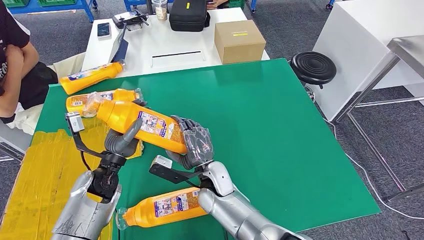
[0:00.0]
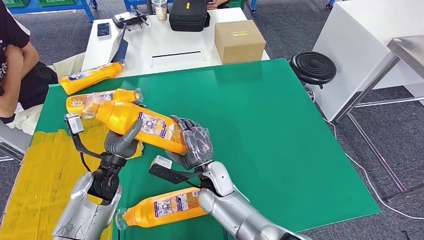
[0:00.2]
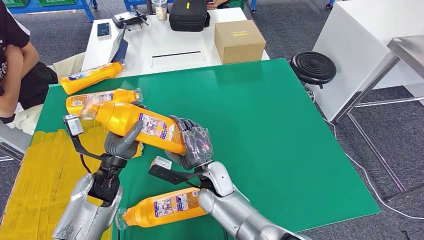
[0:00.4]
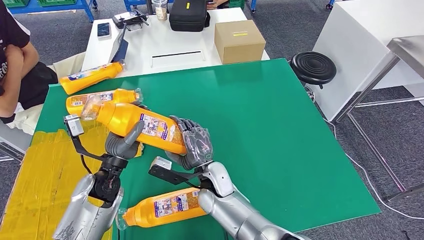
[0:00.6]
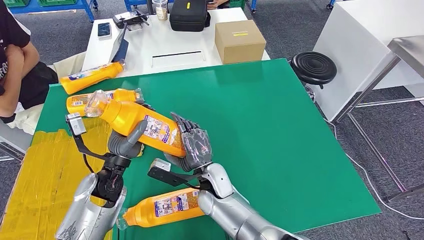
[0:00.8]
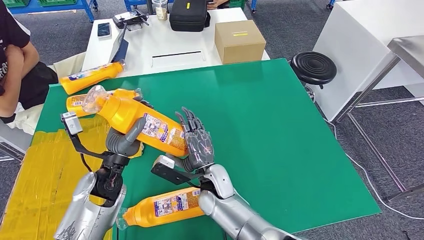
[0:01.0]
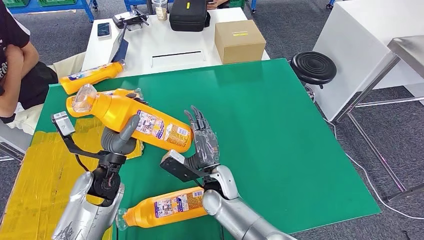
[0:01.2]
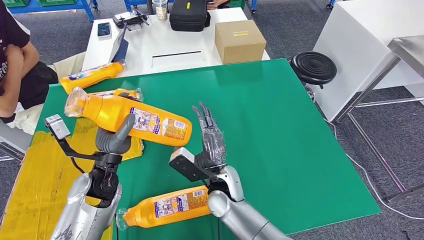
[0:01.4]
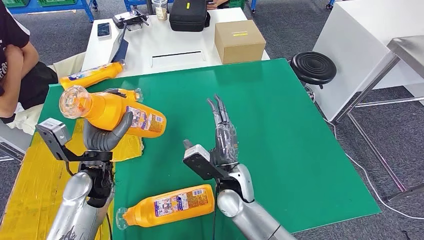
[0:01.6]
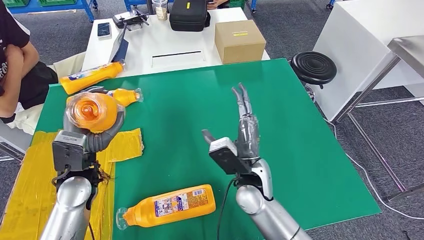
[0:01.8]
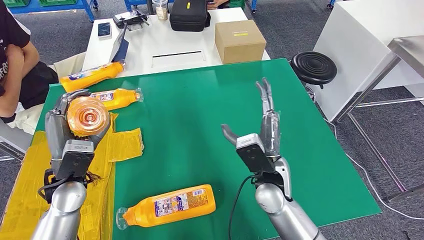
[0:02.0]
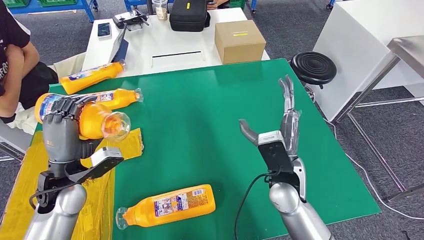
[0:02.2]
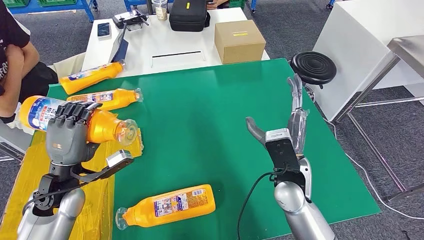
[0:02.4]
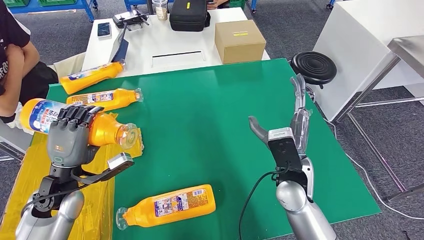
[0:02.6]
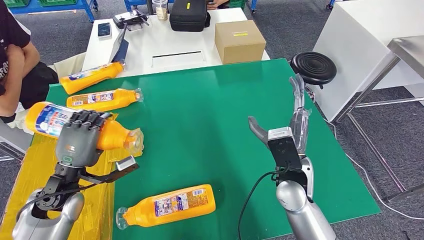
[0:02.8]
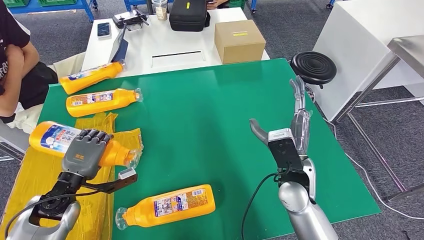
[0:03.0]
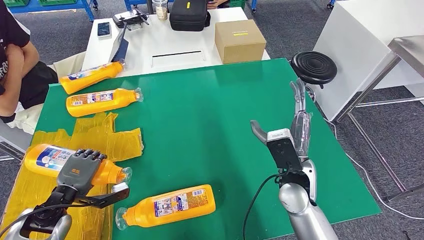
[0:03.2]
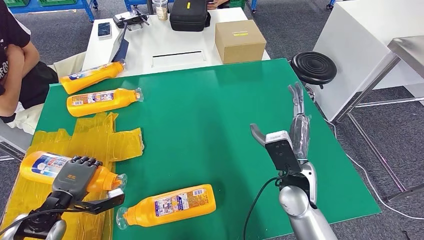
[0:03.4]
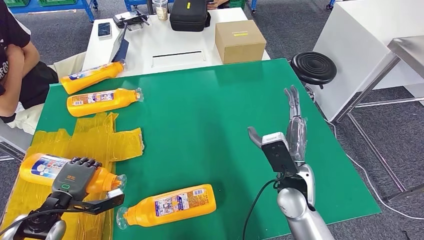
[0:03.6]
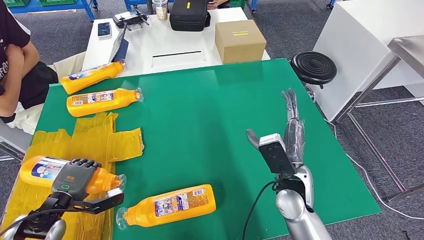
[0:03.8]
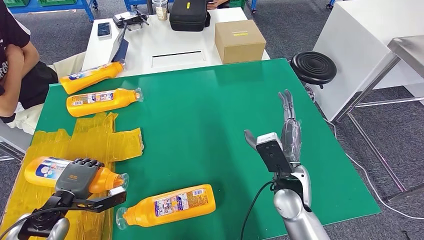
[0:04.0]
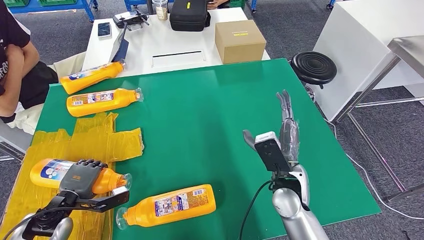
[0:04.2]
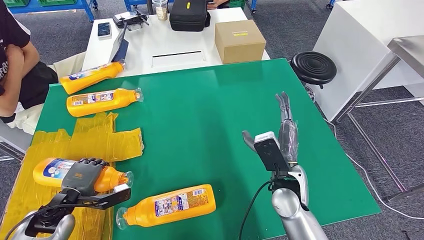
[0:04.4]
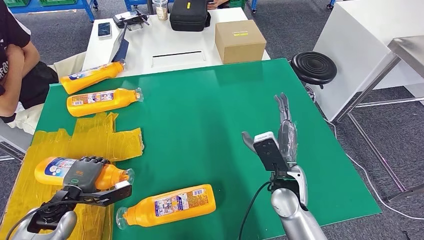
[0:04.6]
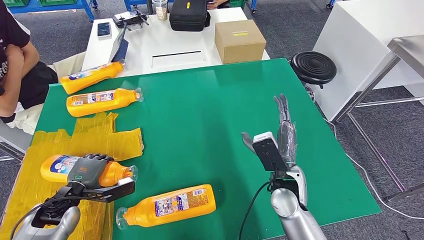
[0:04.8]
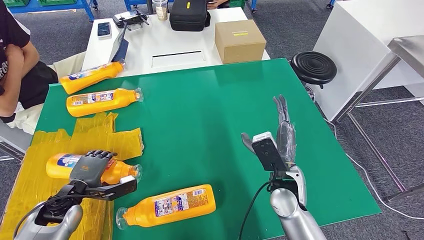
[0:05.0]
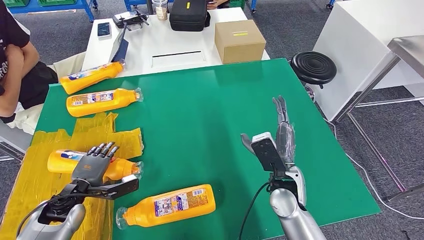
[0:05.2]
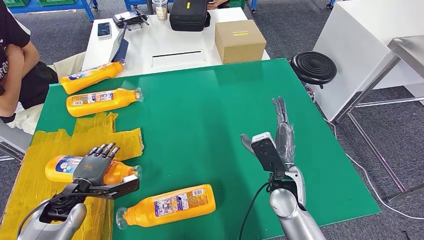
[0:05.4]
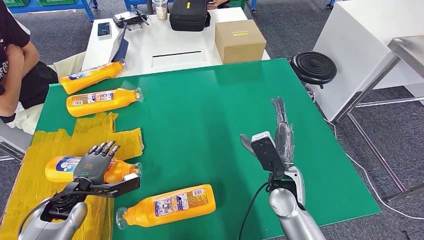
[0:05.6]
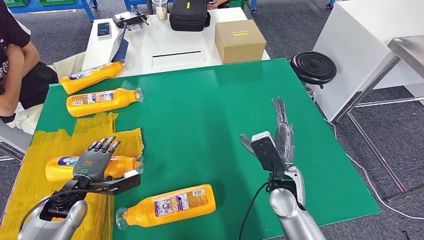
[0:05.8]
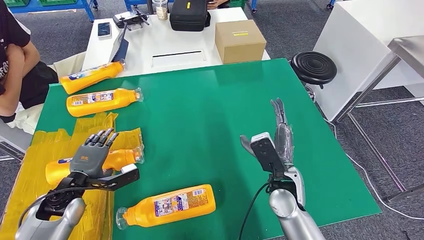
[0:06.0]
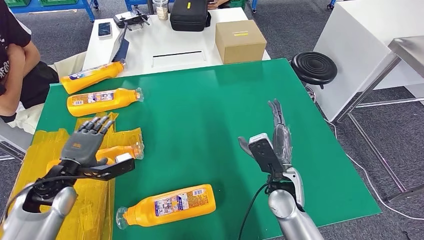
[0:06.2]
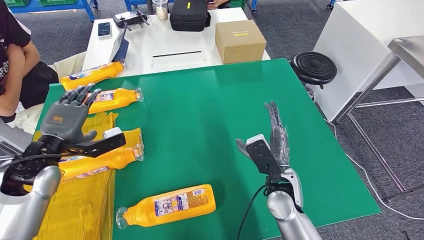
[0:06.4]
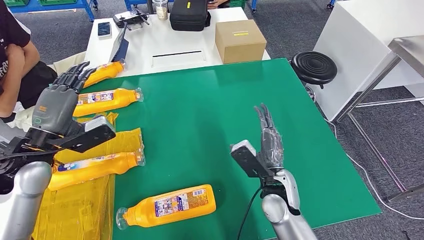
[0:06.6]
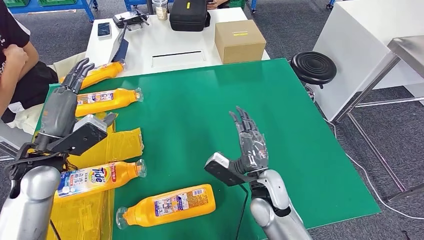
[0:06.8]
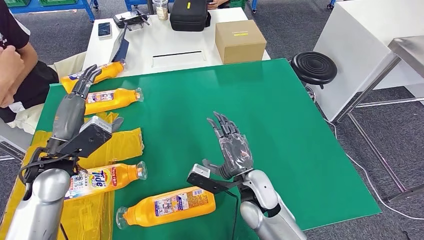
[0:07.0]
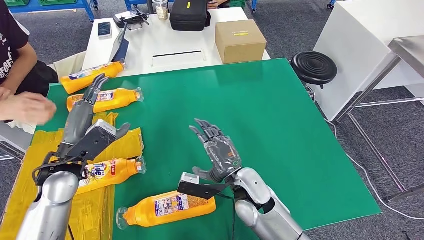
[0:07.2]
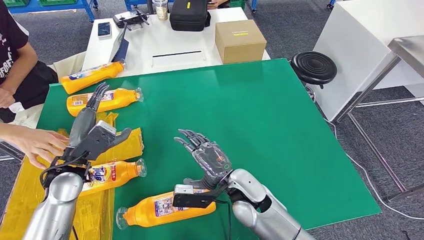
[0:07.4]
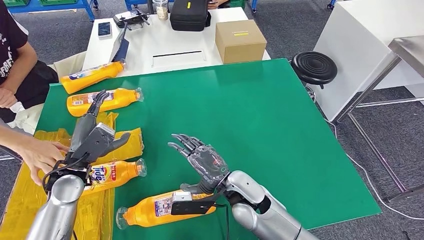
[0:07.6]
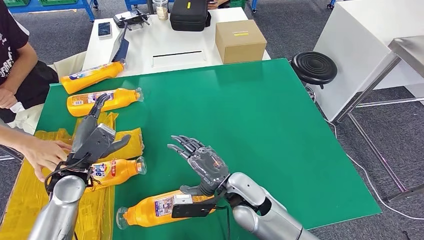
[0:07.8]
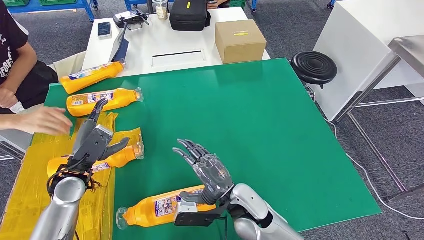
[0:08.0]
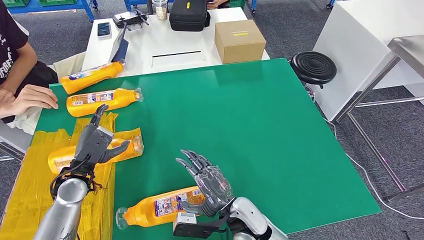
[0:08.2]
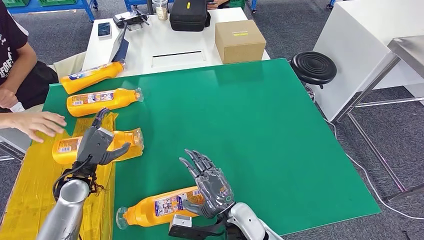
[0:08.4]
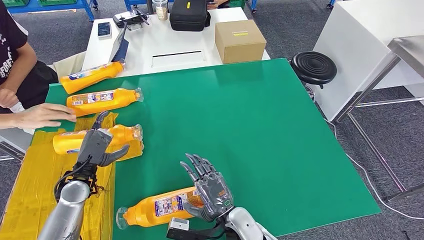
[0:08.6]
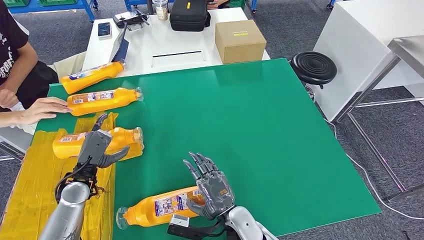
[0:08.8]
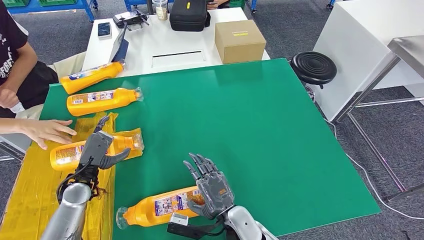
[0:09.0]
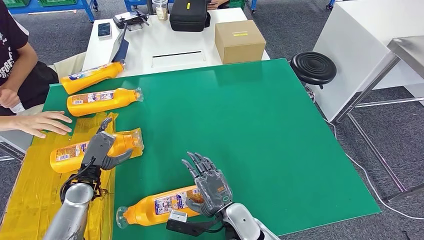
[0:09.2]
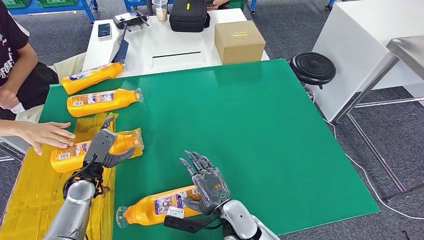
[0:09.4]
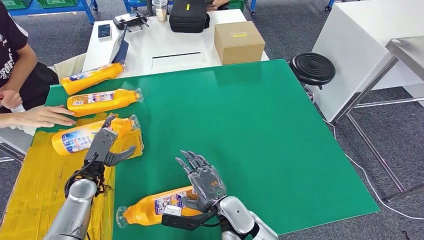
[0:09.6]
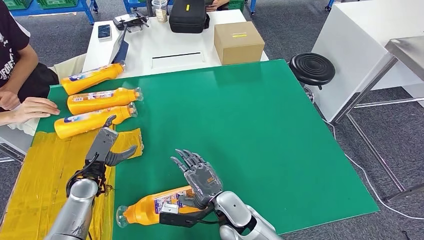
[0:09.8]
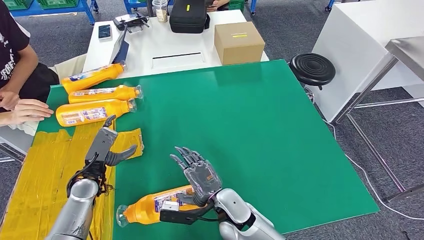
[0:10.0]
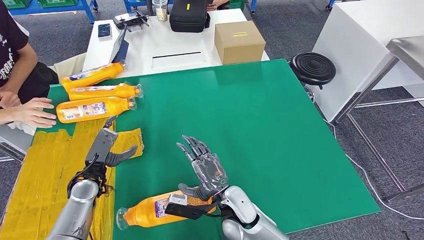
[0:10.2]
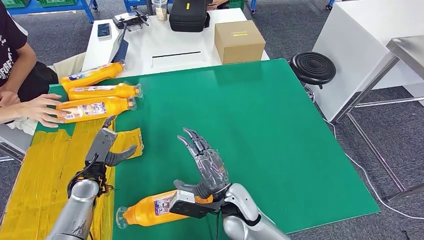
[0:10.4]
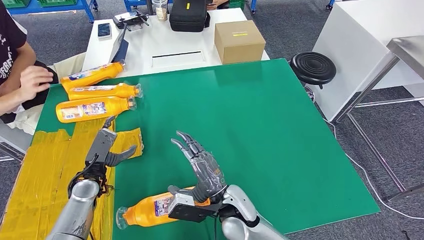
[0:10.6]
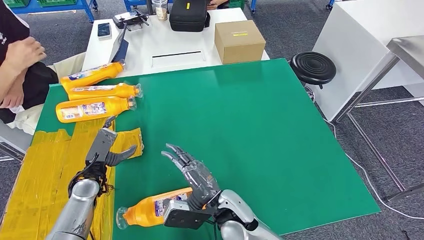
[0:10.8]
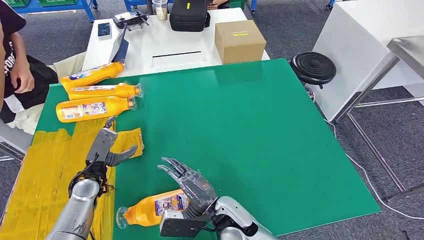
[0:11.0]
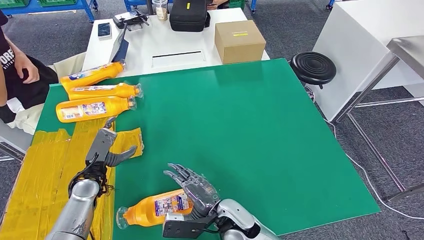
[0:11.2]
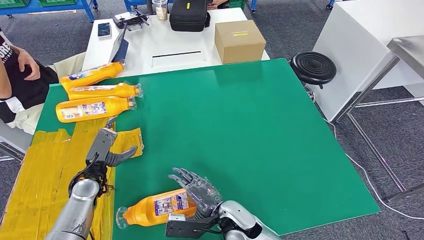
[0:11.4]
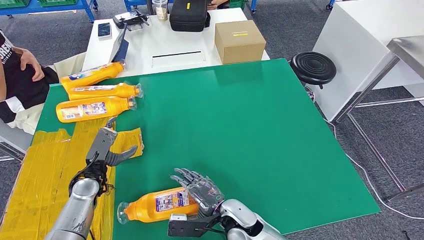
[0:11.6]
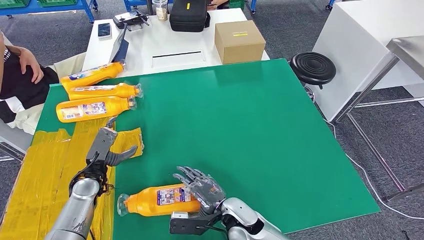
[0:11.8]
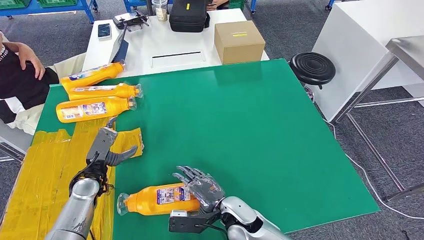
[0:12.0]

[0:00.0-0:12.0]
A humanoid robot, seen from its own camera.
Step, 0:00.6 to 0:05.6: Flip the fast-moving consumer goods bottle to the front side.
0:00.0 to 0:01.6: The right hand moves about 5 cm.
0:03.0 to 0:04.4: The left hand shifts some 5 cm downward.
0:04.4 to 0:06.0: The left hand changes place by approximately 5 cm.
0:06.0 to 0:07.6: The left hand moves upward, some 5 cm; the right hand travels to the left by about 10 cm.
0:07.6 to 0:09.0: The left hand is displaced downward by some 5 cm. Meanwhile the right hand is displaced backward and downward by some 10 cm.
0:09.0 to 0:10.4: The right hand moves some 5 cm.
0:10.4 to 0:12.0: The right hand shifts roughly 5 cm downward.

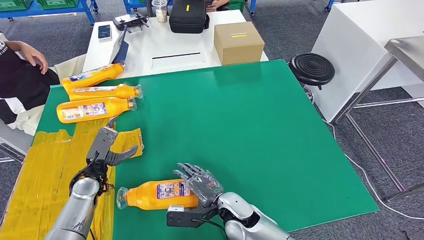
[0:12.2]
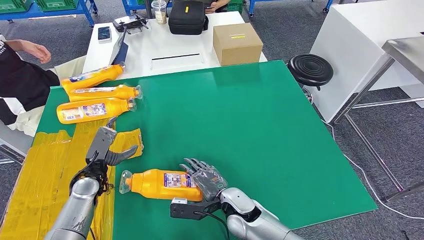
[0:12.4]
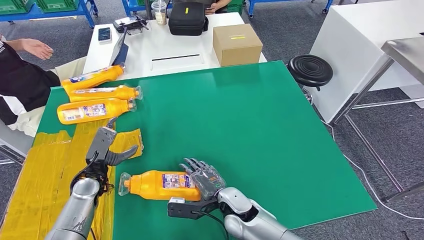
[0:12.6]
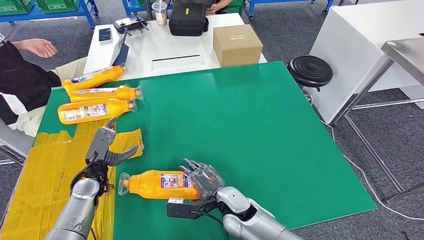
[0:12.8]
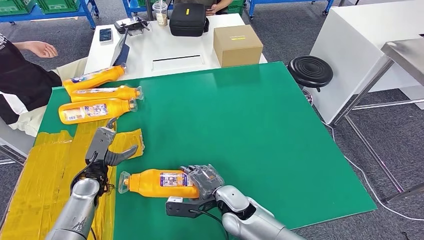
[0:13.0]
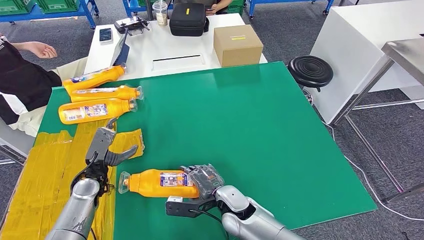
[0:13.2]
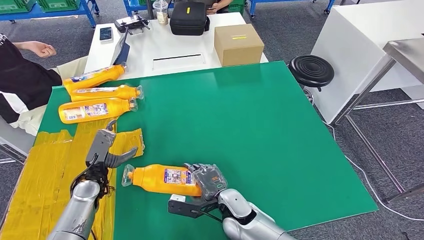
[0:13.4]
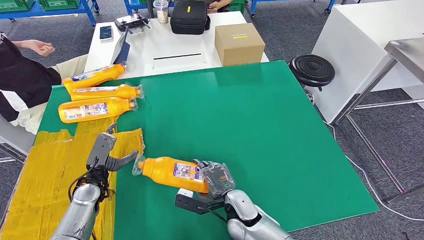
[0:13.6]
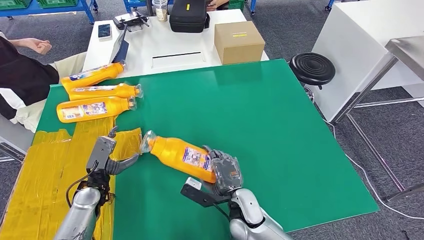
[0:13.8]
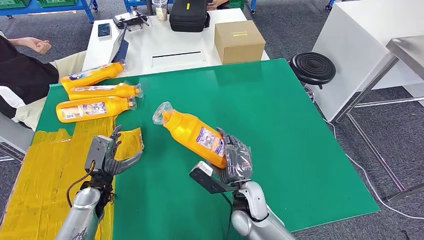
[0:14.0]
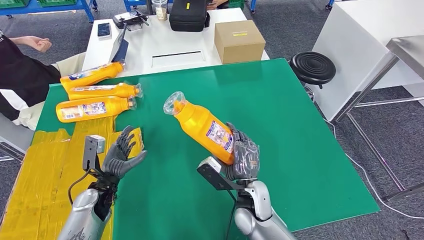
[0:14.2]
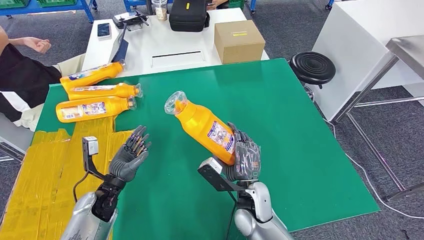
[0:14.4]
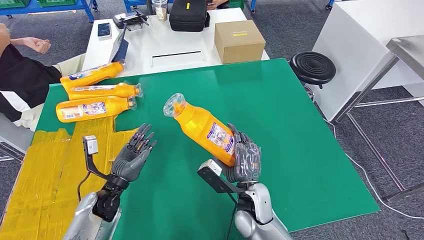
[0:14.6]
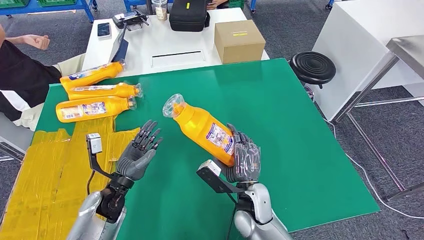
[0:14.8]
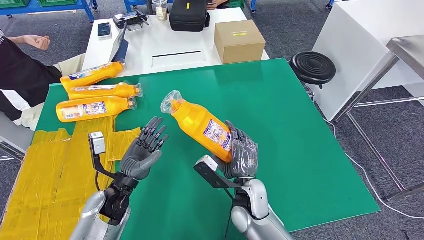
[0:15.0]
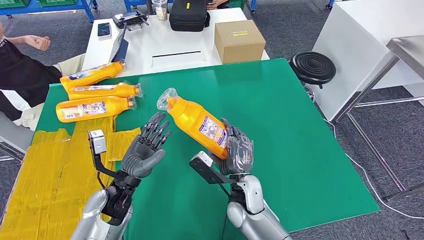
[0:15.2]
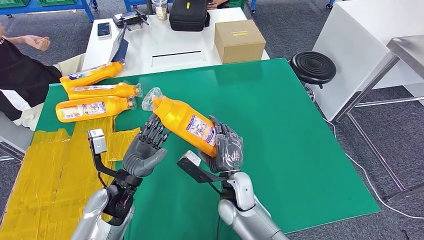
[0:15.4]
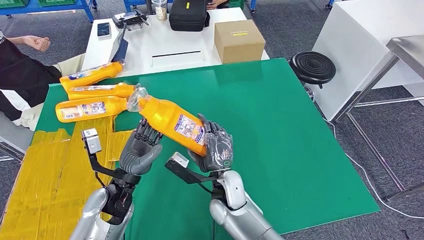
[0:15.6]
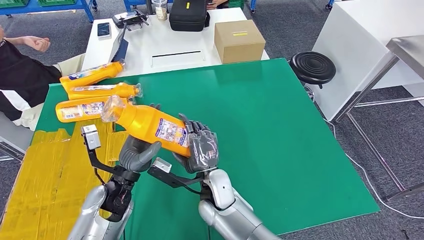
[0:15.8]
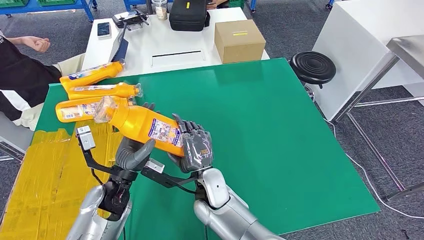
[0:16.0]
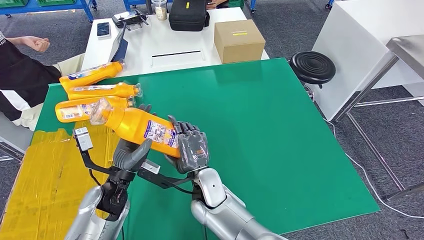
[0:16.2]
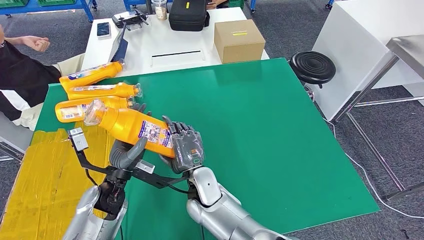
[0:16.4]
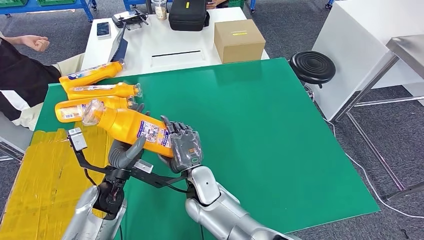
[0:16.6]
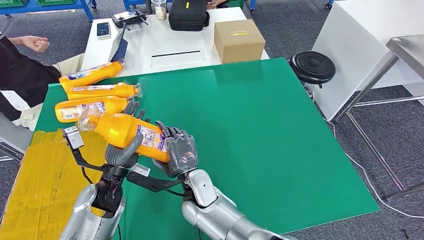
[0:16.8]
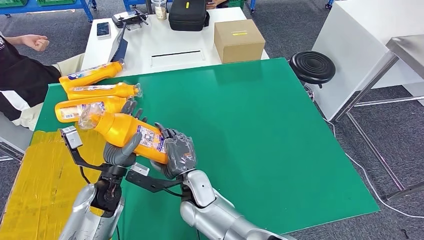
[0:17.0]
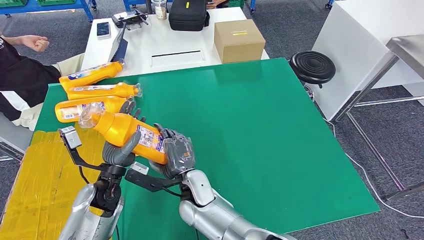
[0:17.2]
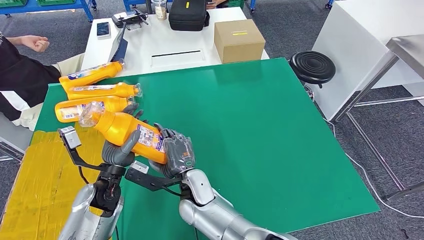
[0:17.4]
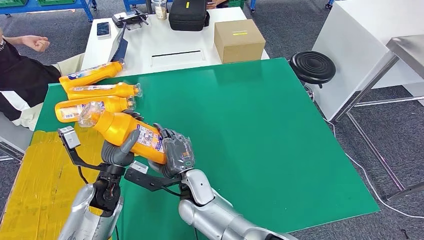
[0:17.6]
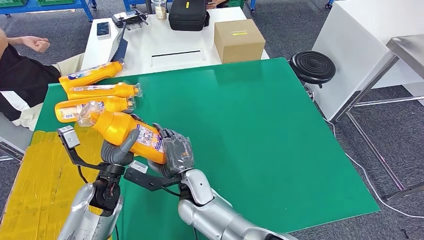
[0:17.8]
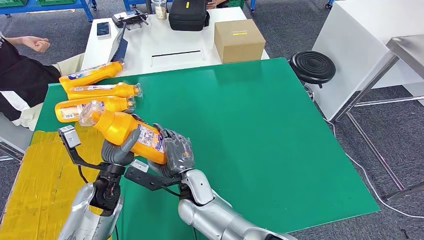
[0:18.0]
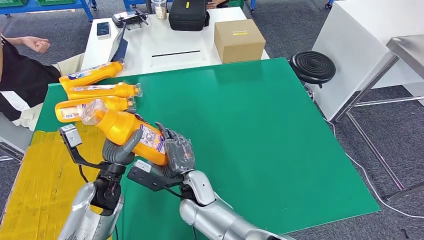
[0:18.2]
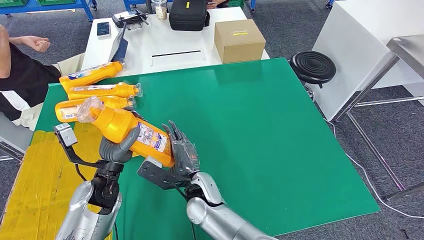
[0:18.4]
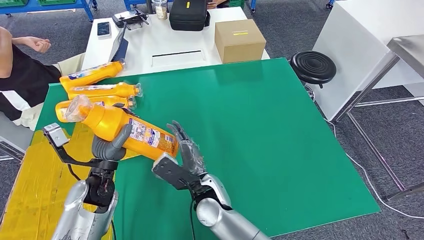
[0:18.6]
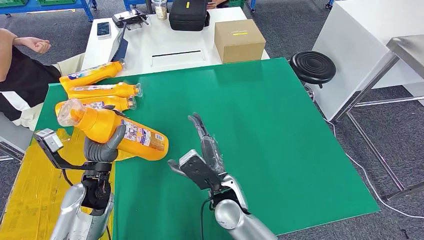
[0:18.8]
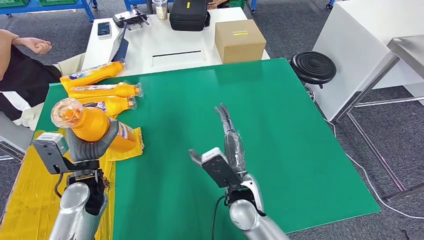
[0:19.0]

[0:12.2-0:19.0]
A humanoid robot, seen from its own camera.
0:15.0 to 0:16.2: The right hand heads to the left, covering roughly 10 cm.
0:16.2 to 0:17.6: The hands stay close to where they were, moving slightly.
0:17.6 to 0:19.0: The right hand goes about 10 cm to the right.
